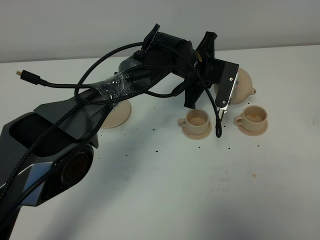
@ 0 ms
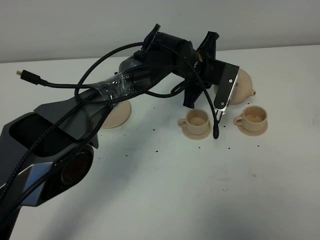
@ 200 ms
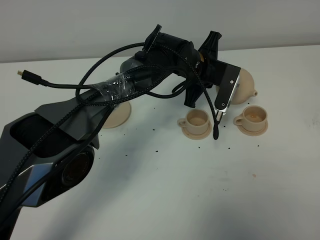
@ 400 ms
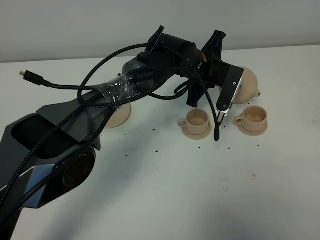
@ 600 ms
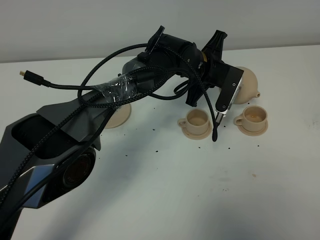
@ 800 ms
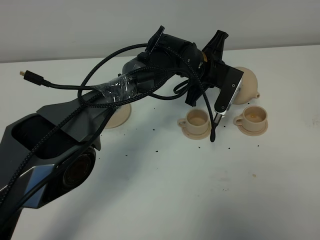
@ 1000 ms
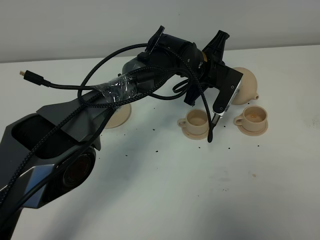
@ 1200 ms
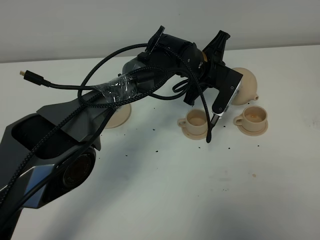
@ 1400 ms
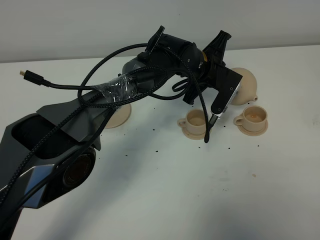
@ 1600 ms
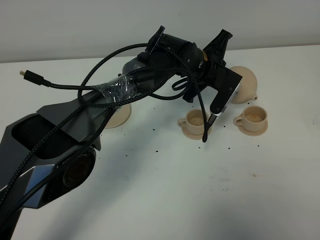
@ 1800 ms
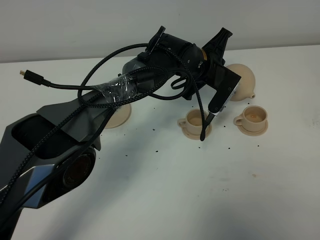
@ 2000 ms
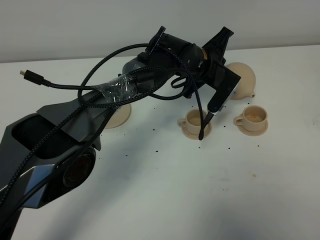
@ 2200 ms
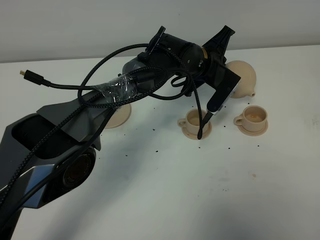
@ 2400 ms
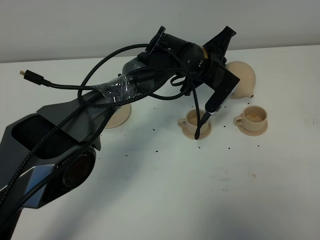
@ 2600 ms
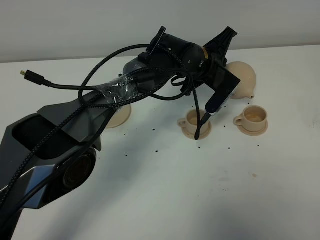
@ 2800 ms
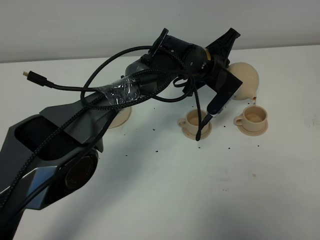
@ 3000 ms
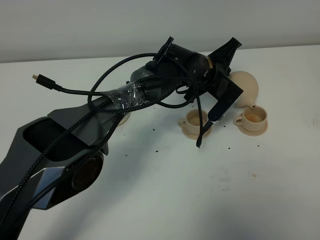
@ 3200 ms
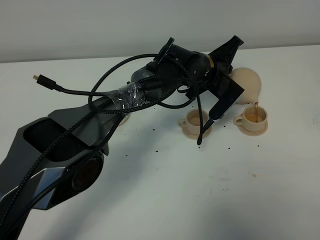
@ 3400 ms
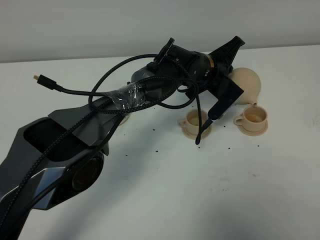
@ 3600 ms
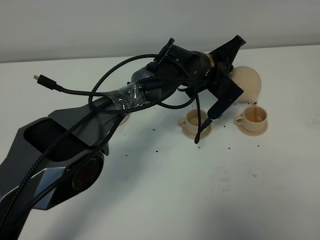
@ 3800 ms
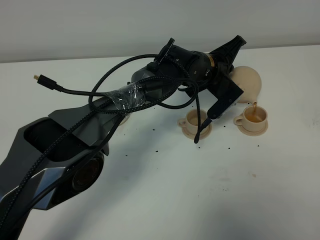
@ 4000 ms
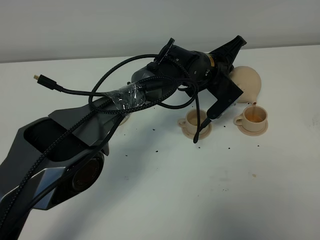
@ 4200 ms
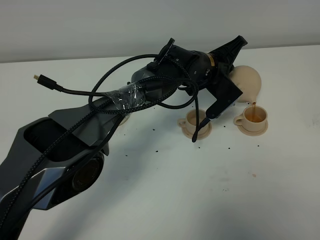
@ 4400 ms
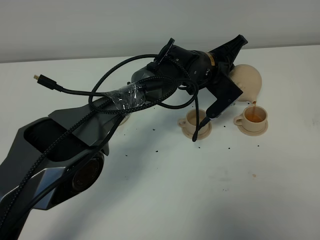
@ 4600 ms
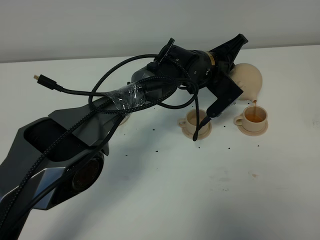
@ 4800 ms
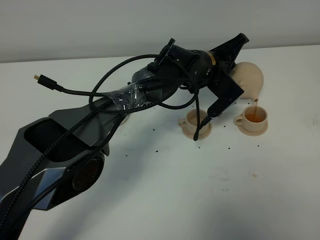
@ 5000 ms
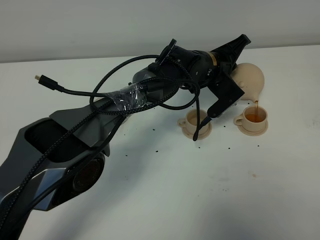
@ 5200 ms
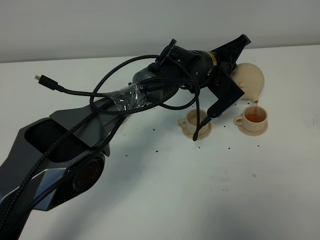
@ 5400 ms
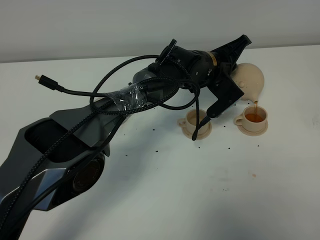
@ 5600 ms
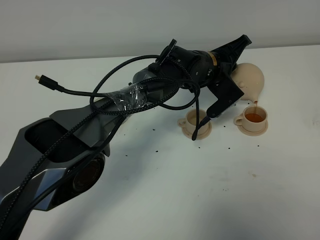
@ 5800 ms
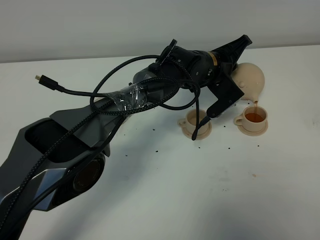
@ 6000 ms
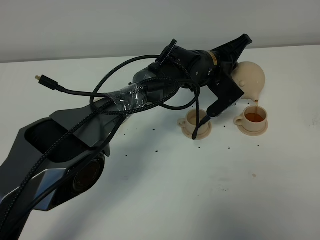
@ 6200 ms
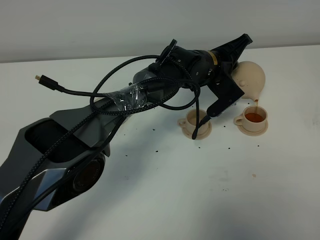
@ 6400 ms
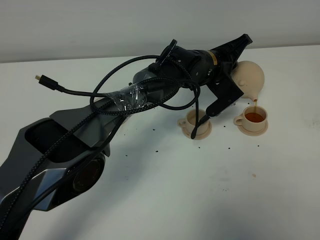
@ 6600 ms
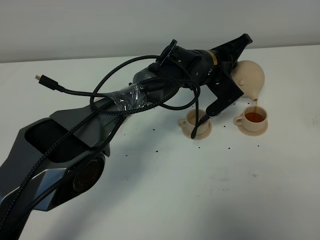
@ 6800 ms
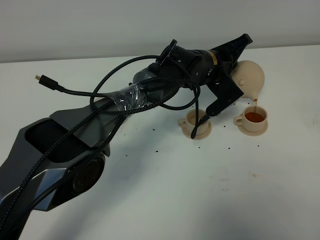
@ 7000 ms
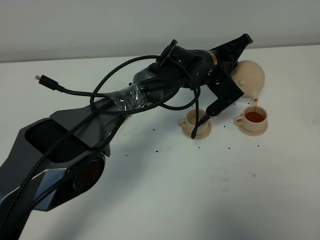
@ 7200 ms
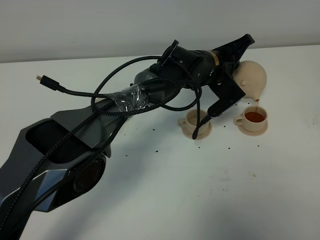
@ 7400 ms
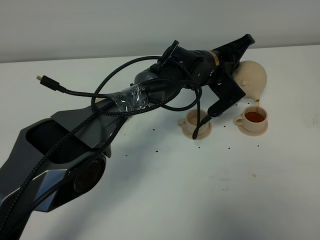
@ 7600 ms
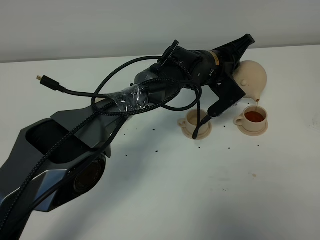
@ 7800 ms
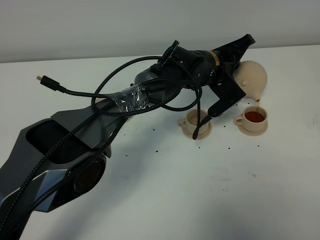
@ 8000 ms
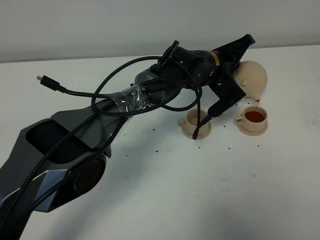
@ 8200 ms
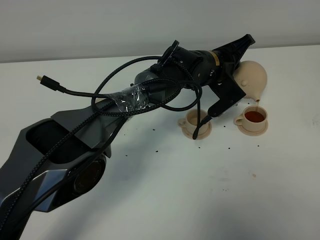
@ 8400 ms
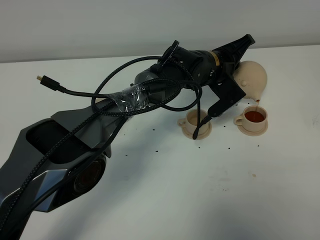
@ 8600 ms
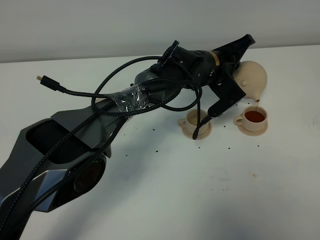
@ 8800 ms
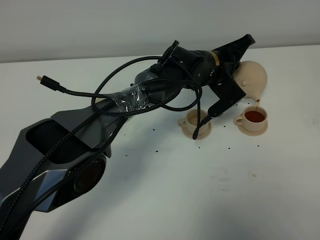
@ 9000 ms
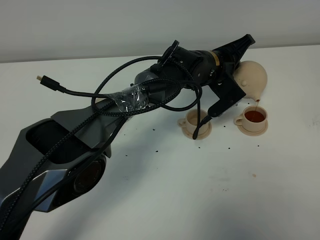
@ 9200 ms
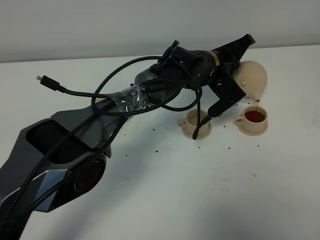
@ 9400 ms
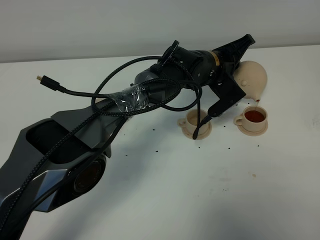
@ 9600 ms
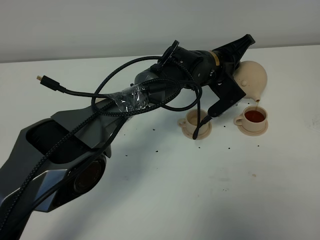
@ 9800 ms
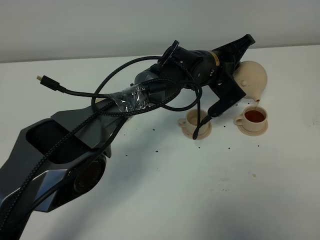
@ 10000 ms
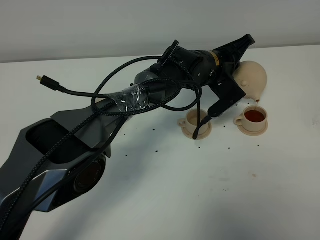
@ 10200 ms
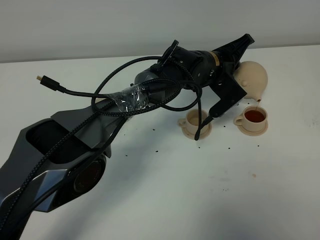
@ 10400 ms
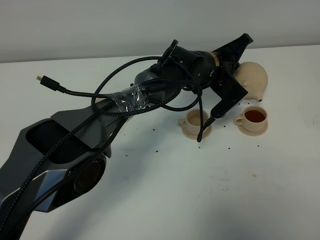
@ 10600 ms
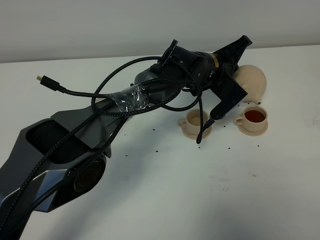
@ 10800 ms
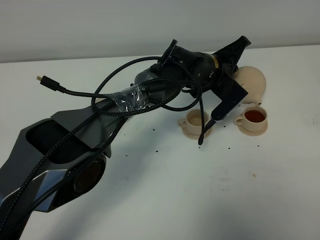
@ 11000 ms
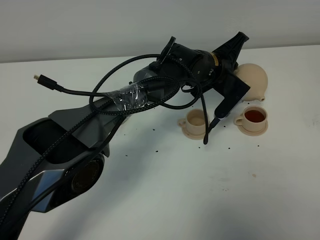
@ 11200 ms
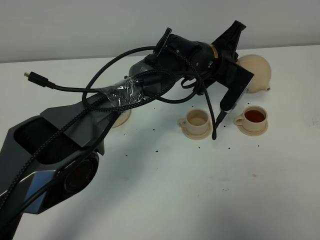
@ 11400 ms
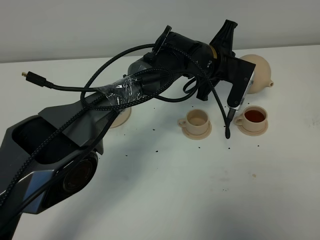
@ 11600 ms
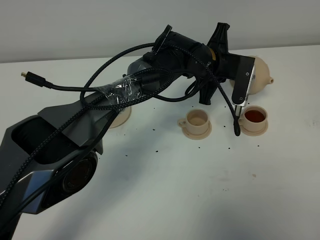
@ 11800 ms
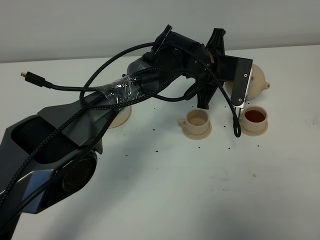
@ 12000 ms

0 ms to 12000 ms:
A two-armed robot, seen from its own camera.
Task of the whole recording: grasp the brown teapot and pour the tea into the two brown teacups one by one, put the brown teapot back in its original place.
0 ms to 1600 ms: The grippers make only small movements.
1600 ms to 3000 ms: There are only small adjustments of the grippers.
3000 ms to 4400 ms: The grippers stay close to where they were, moving slightly.
4400 ms to 6000 ms: Neither gripper changes place.
6000 ms to 10400 ms: Both grippers stay about where they are.

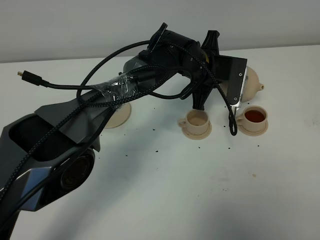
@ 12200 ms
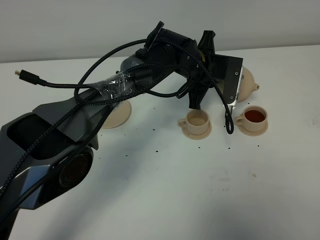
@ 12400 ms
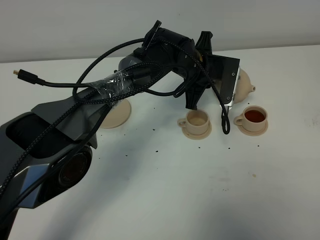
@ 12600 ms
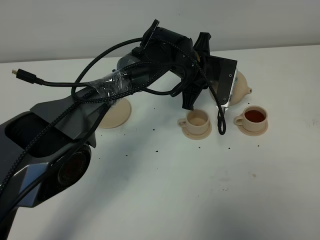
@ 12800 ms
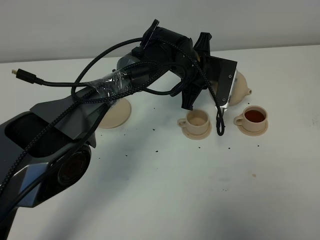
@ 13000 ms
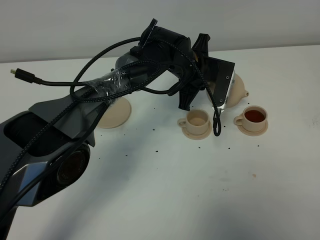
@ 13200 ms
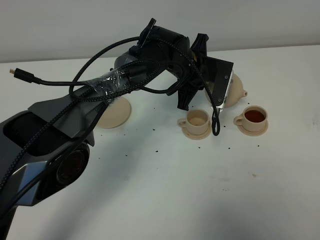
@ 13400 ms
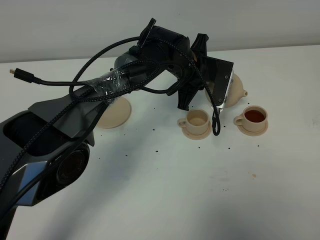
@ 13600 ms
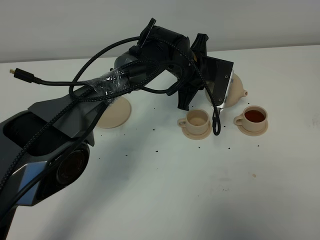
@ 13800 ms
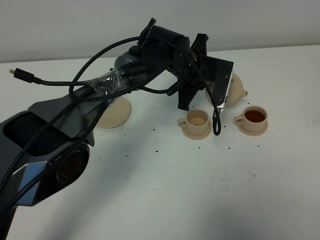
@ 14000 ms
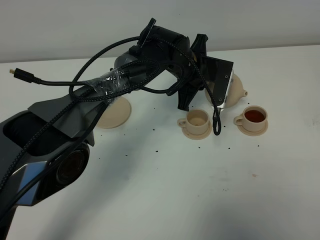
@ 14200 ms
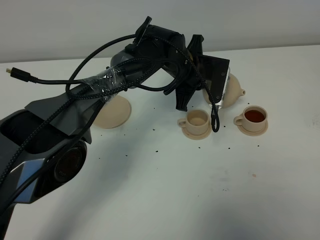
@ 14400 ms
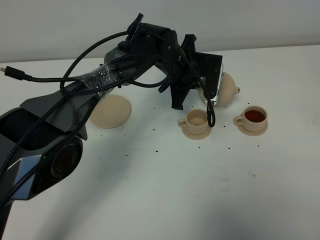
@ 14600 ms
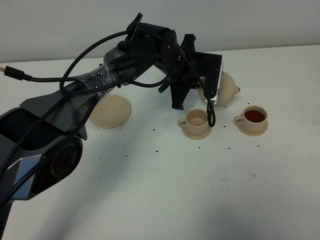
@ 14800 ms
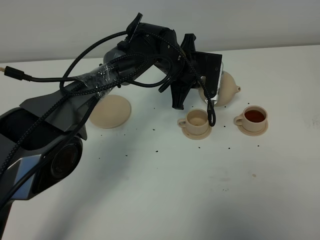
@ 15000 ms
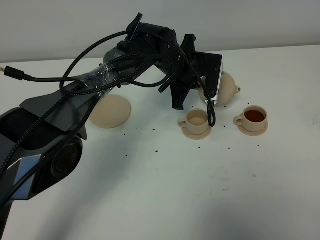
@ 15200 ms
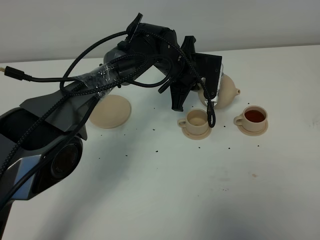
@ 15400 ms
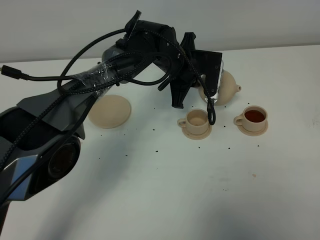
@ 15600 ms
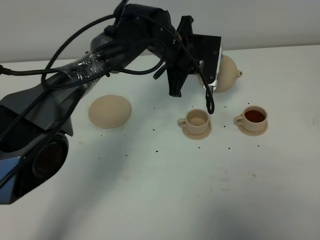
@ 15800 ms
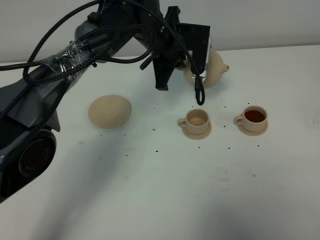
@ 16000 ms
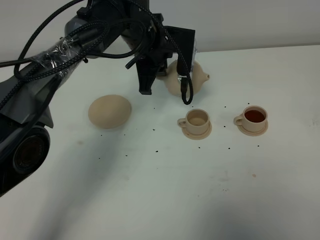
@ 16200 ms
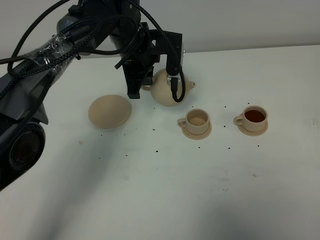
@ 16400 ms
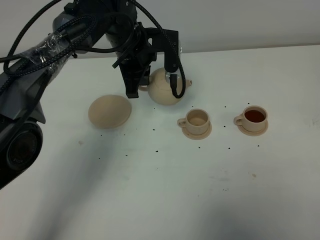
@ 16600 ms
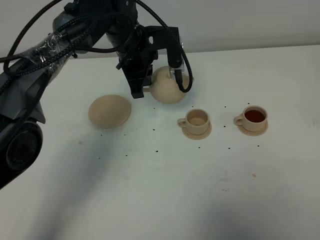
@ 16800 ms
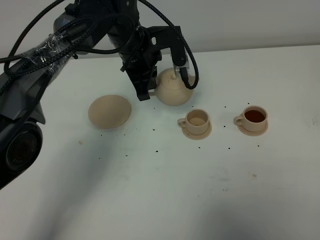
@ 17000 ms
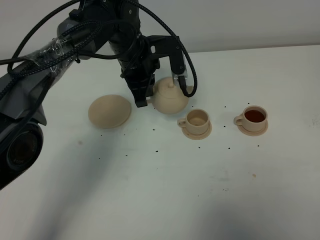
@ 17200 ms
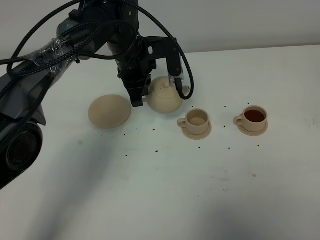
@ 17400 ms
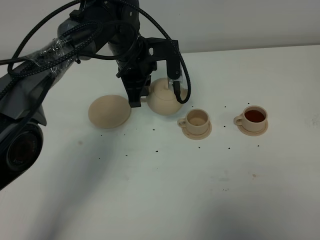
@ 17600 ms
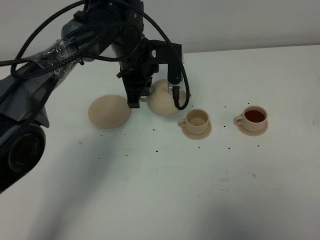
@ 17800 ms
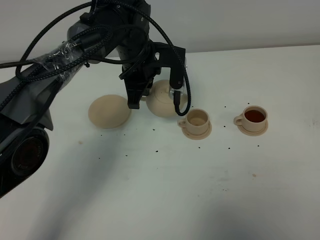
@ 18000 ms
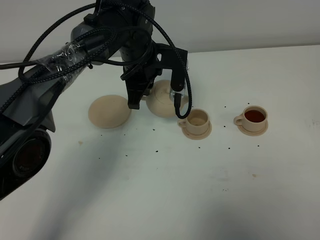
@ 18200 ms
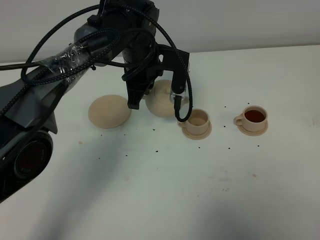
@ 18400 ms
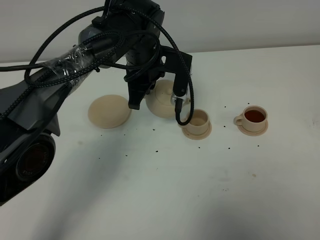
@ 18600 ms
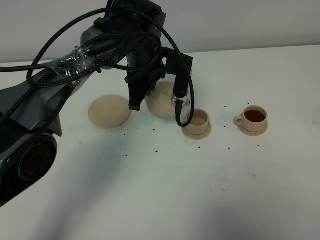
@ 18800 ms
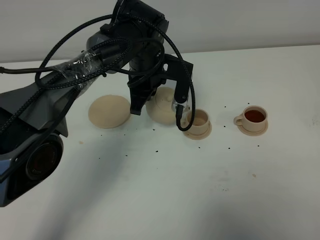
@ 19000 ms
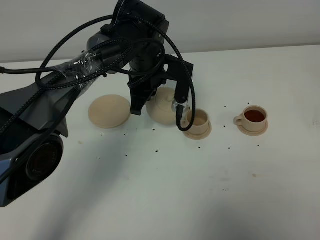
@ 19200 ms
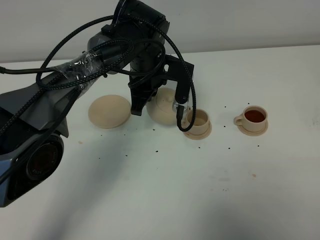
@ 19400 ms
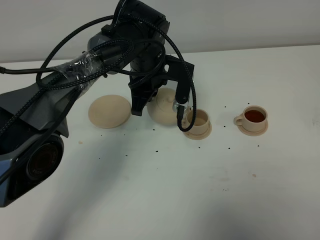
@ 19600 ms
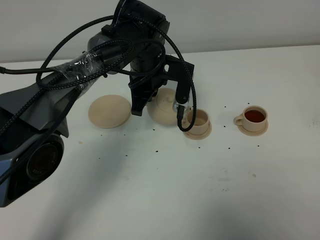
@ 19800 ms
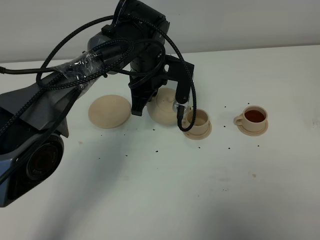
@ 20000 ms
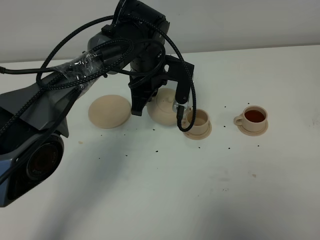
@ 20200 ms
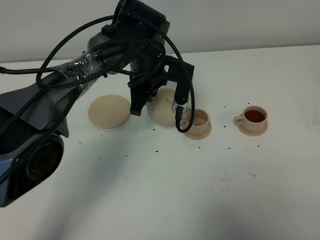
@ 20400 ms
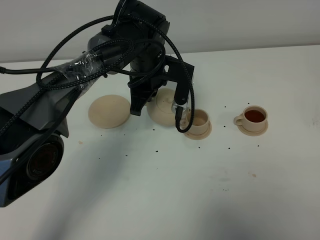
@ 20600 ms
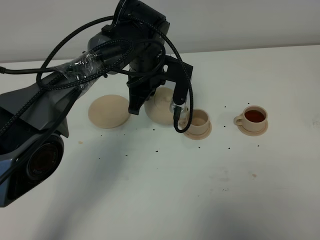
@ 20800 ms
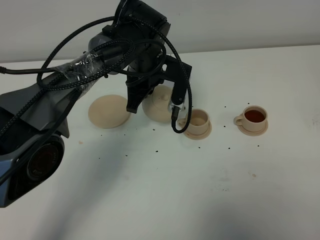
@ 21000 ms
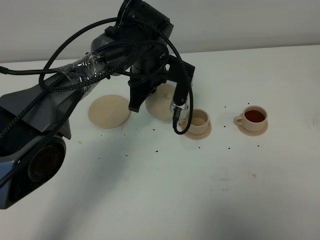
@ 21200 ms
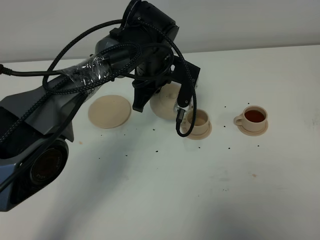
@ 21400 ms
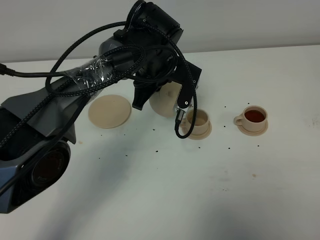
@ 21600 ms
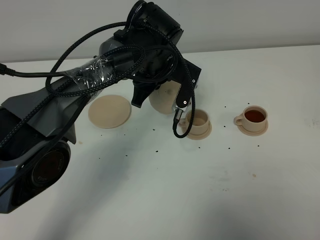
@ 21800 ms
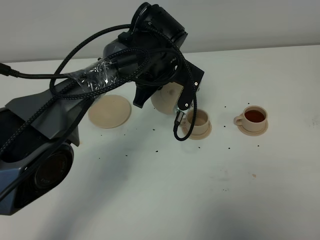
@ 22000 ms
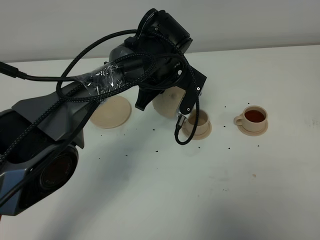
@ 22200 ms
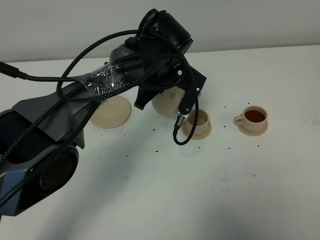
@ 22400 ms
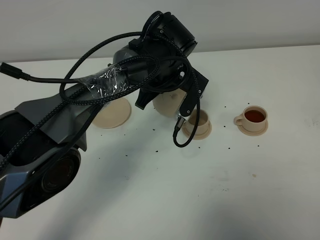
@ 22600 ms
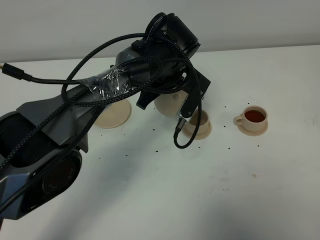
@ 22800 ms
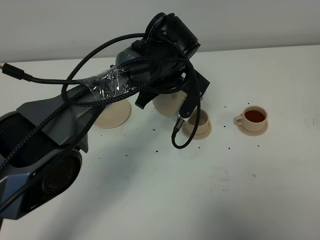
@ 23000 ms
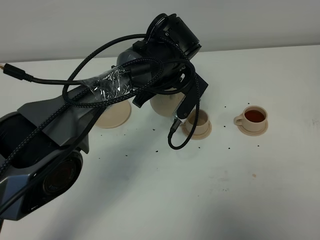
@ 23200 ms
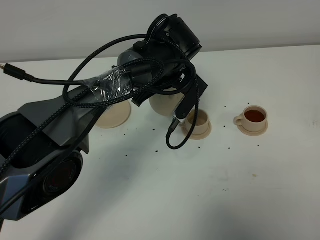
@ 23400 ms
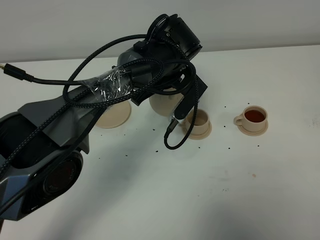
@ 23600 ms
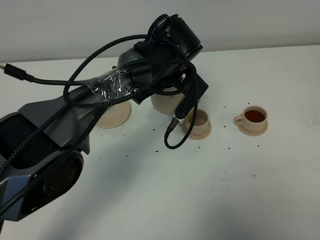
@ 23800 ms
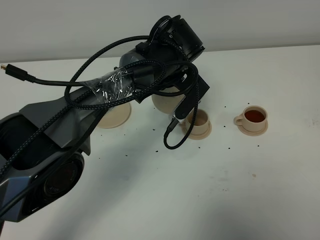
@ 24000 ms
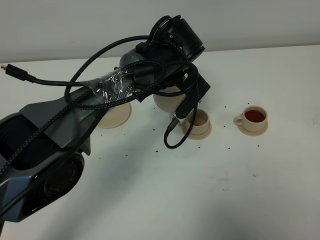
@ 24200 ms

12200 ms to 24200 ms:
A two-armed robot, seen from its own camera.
Task of the whole recording: grasp the brown teapot and pour the tea into the two brown teacups one by one, put the brown teapot back in its original place.
12200 ms to 15200 ms: The grippers make only small movements.
15200 ms to 16600 ms: The left gripper travels to the left and upward by some 10 cm.
16600 ms to 19800 ms: The grippers move only a little.
19800 ms to 21200 ms: The grippers make only small movements.
21200 ms to 22600 ms: The grippers move only a little.
22600 ms to 24200 ms: The grippers move only a little.
